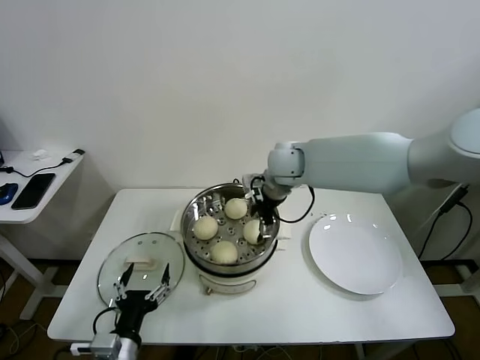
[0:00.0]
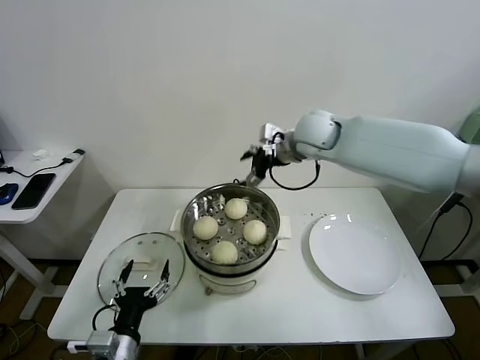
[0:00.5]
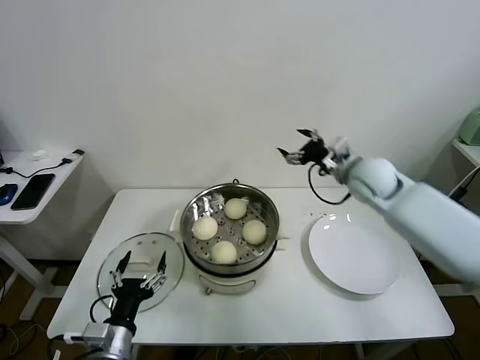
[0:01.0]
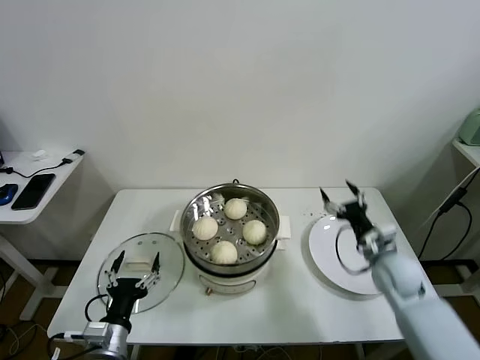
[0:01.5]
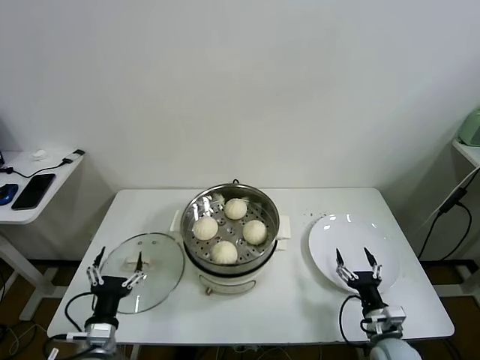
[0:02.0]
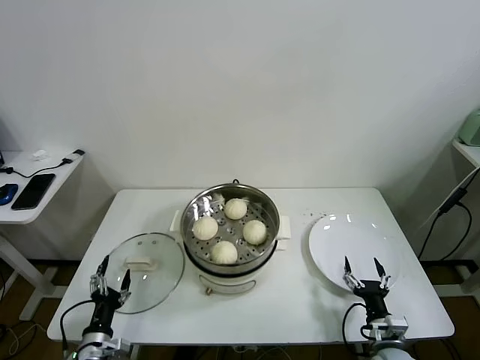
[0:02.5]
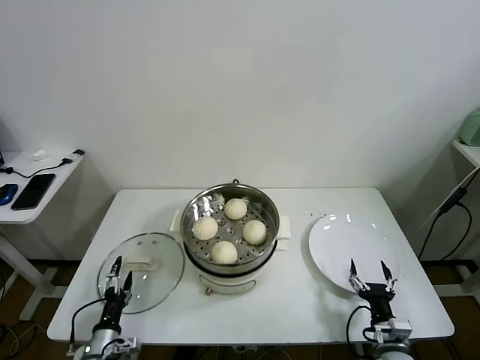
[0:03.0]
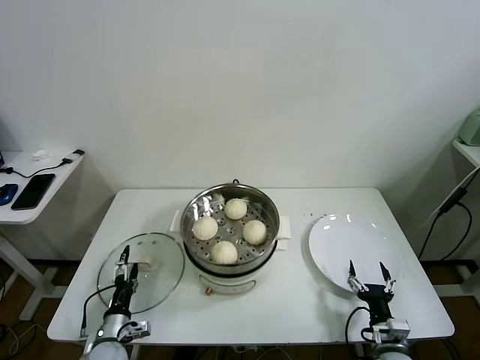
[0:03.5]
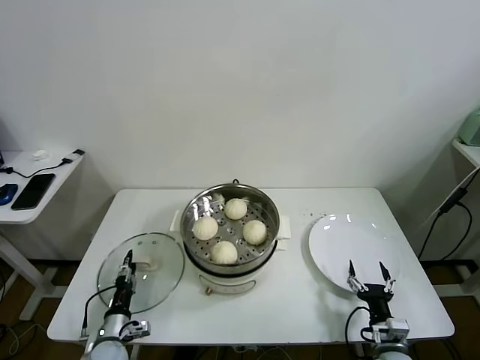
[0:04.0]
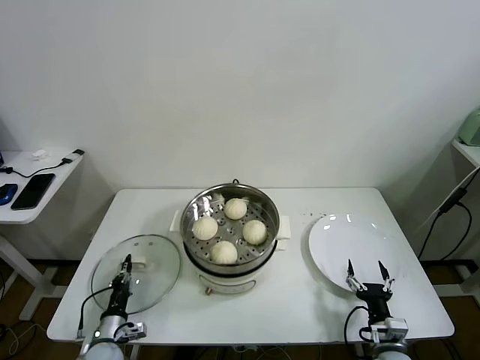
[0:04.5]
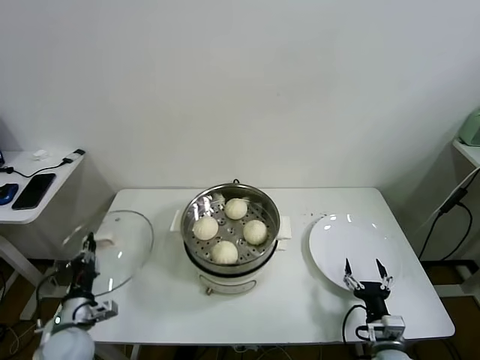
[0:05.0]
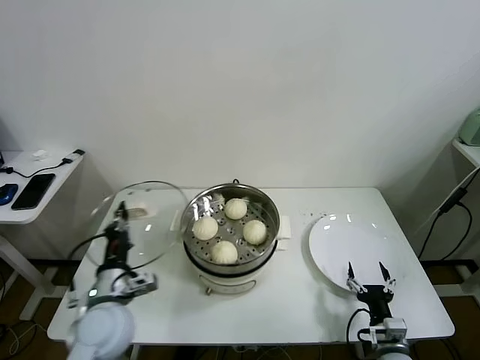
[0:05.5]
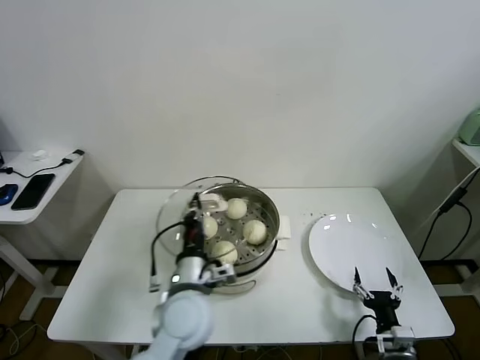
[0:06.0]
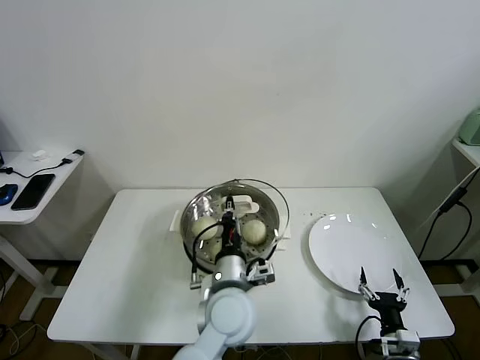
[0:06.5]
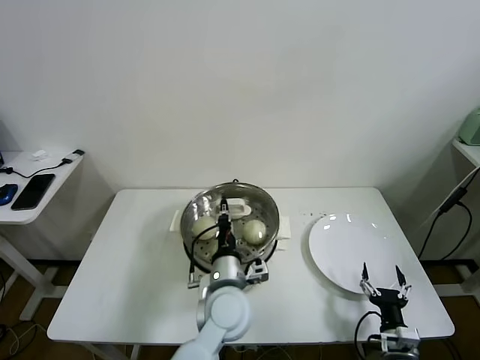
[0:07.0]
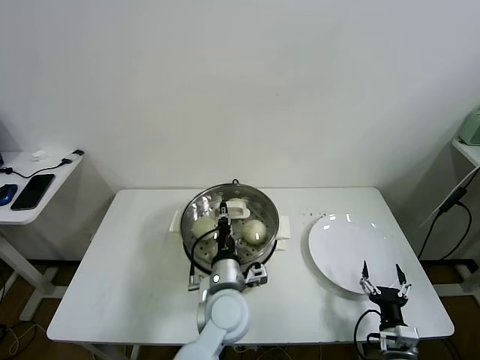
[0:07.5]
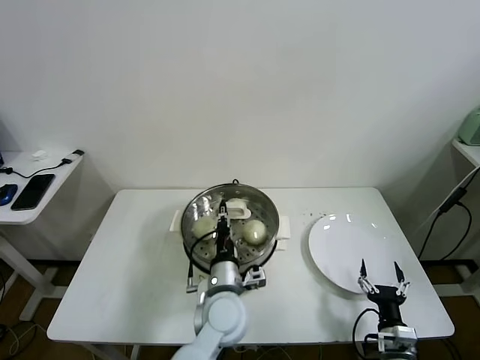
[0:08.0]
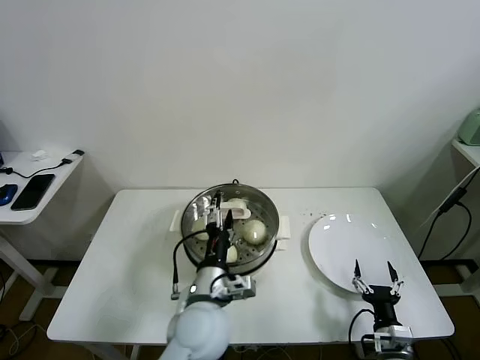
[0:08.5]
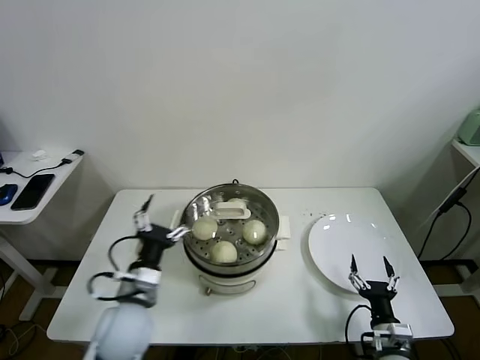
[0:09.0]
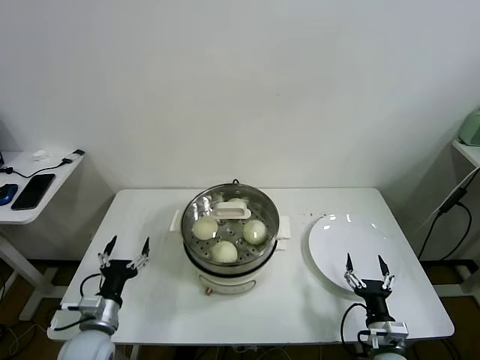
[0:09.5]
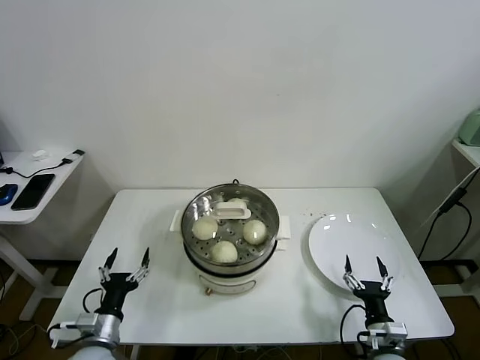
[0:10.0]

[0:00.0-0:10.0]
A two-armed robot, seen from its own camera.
Task of the whole recording: take steamed baozi put them in steamer.
Step, 0:00.0 to 0:04.0: Grasp the pot lid with left gripper.
Step, 0:04.5 to 0:08.0: Place the pot lid on the steamer with left gripper.
0:00.0 to 0:02.0: The right gripper shifts approximately 50 cm downward, backward and to the right, while the left gripper is displaced to the left by about 5 cm.
0:02.0 to 0:04.0: The left gripper is displaced downward and forward by roughly 15 cm, and closes its fingers.
0:04.0 to 0:06.0: The left gripper is displaced upward and to the right by some 30 cm, and closes up.
0:06.0 to 0:08.0: The left gripper goes approximately 10 cm to the right and downward.
0:08.0 to 0:10.0: The left gripper shifts some 30 cm to the left, and opens its fingers.
